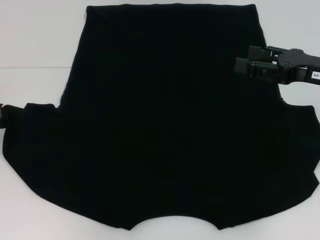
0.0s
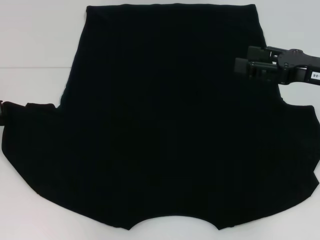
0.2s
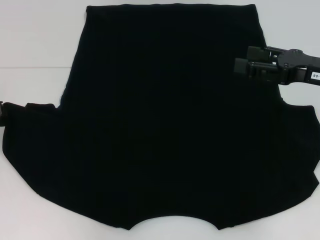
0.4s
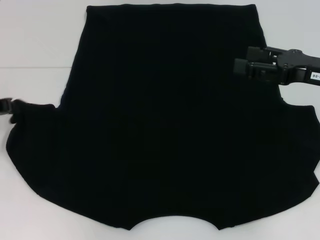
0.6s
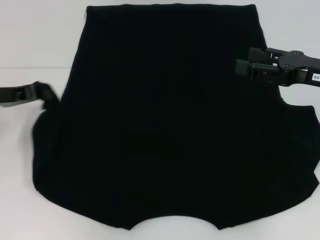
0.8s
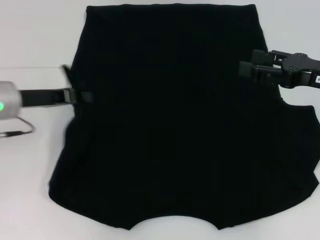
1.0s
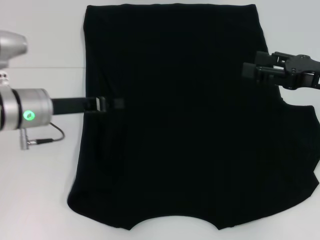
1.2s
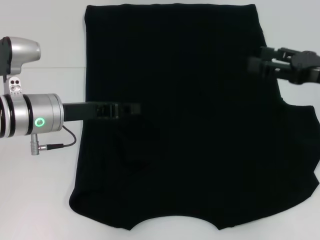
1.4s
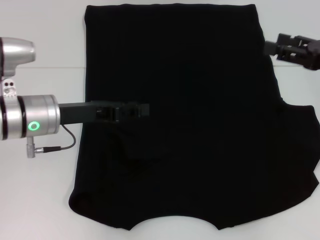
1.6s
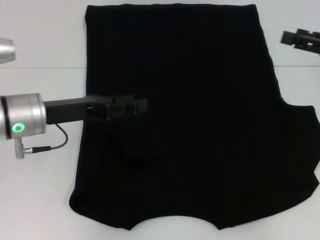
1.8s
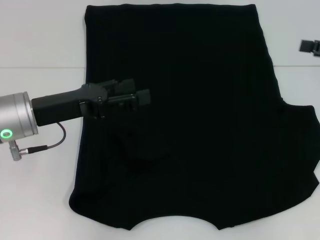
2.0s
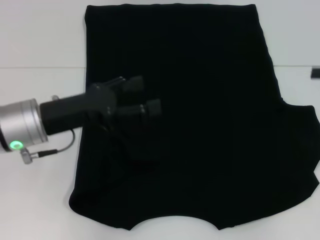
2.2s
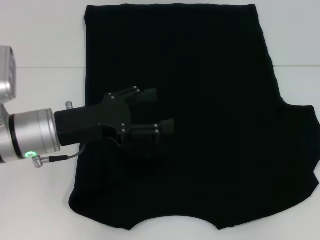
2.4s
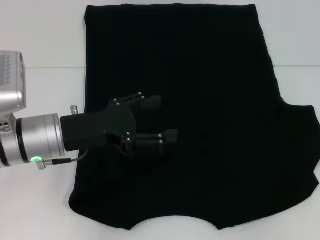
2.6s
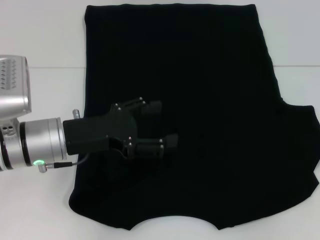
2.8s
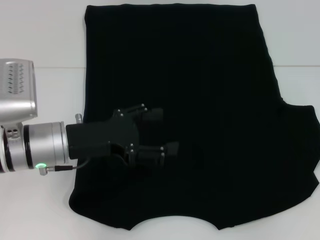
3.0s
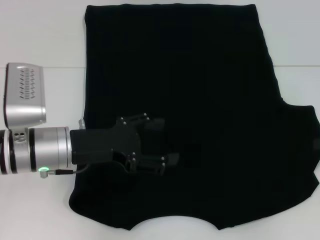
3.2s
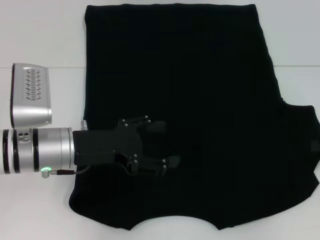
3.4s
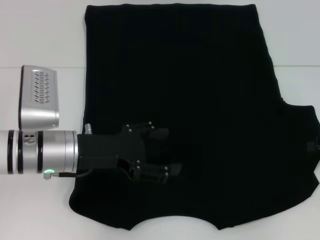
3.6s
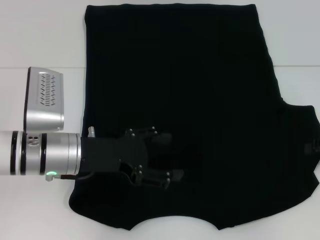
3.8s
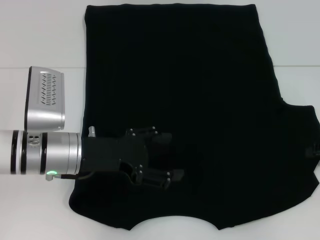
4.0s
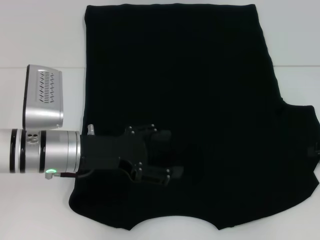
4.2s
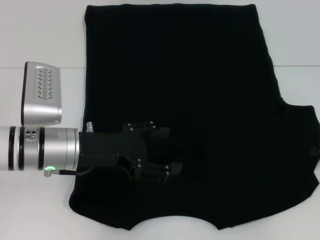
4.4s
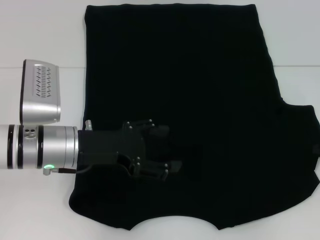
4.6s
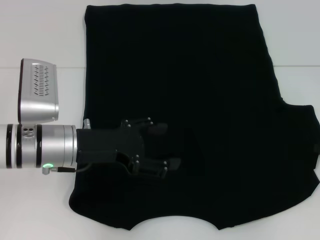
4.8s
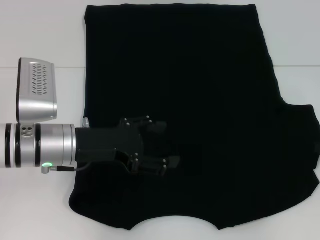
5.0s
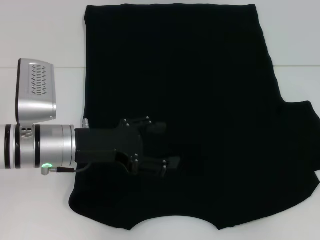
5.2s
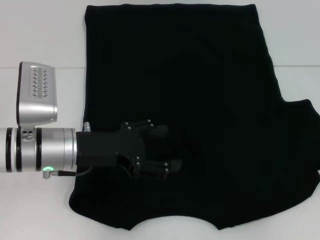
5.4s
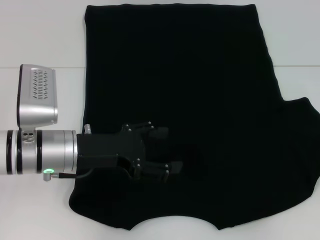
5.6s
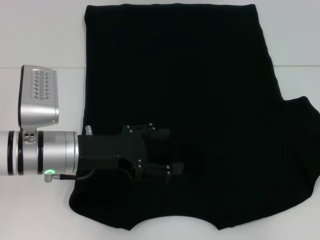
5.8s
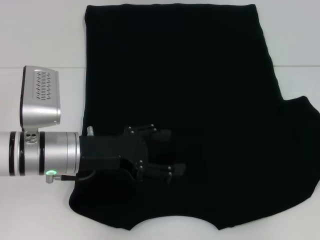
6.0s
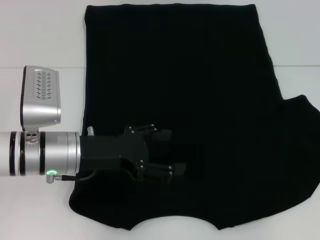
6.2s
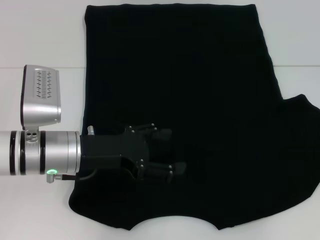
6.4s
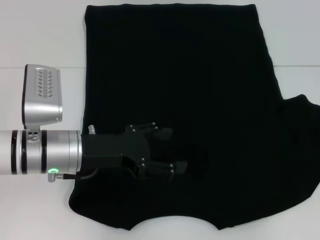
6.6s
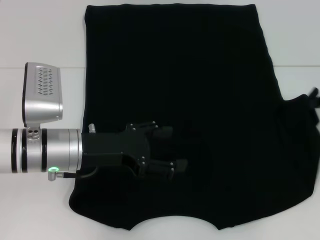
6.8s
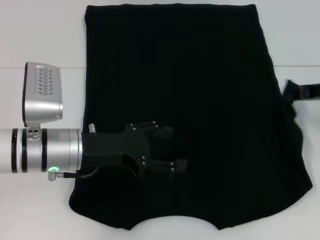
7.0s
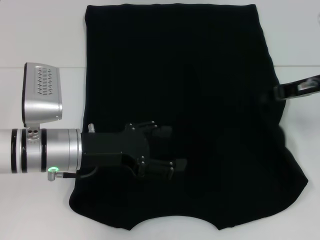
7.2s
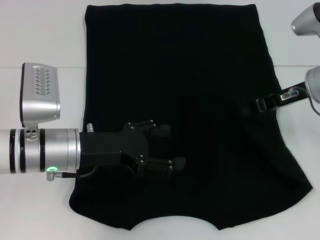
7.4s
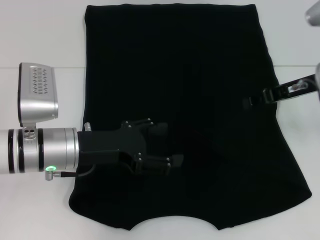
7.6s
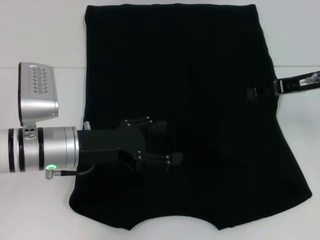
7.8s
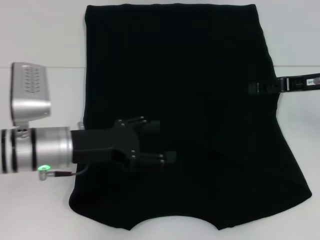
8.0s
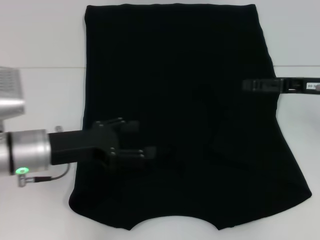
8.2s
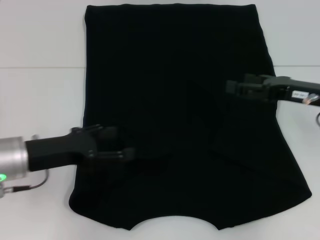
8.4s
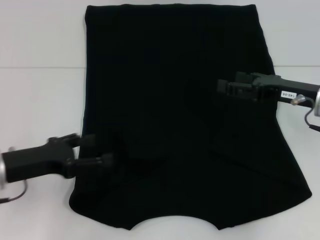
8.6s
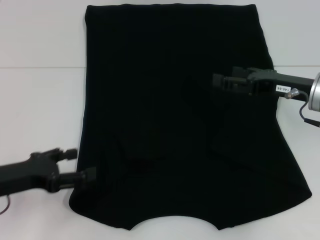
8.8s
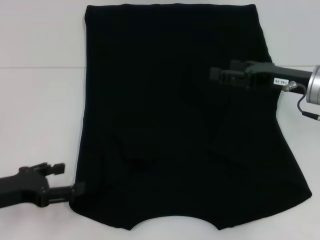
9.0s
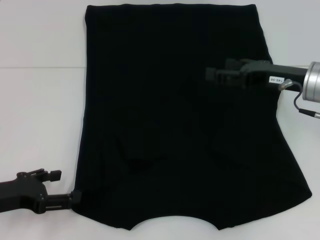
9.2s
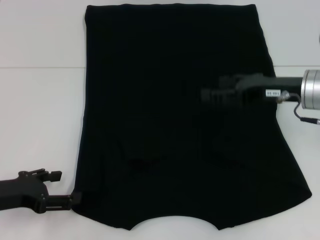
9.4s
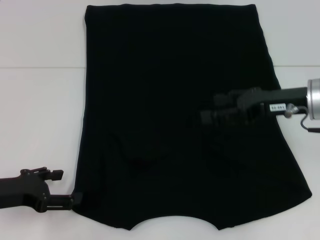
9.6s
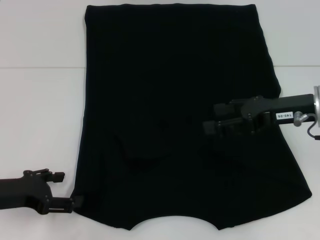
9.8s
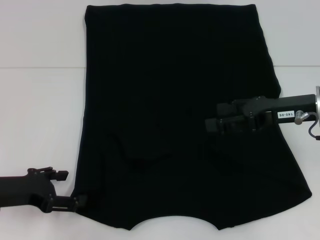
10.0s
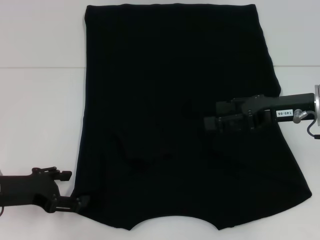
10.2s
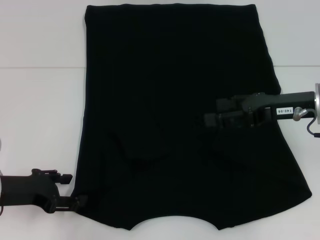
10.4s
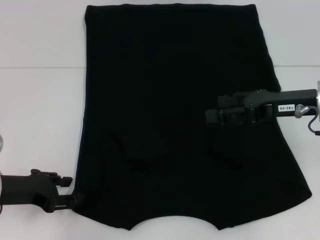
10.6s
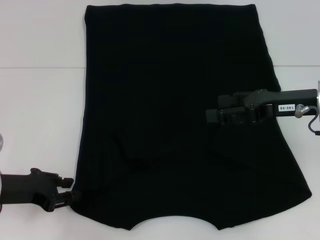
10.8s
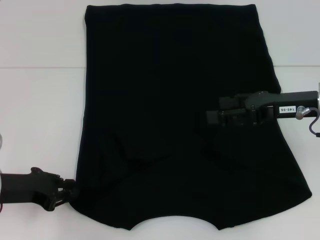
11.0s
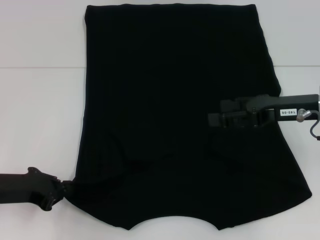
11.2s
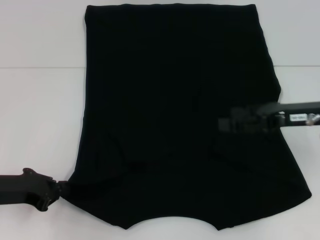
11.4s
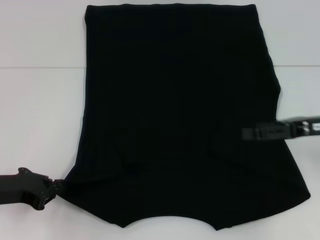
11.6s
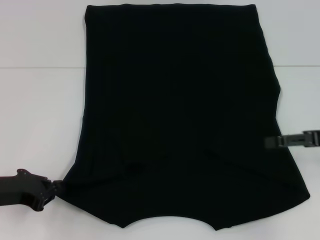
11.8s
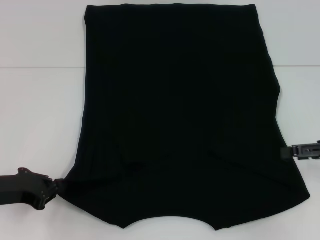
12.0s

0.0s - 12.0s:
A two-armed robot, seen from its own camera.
Step, 1.8s - 8.0s: Fold the bottom right sleeve with your right hand.
0.0s - 1.6s: The left gripper is displaced to the right by about 15 cm, and opens up.
1.6s - 3.0s: The right gripper moves to the right, some 10 cm. Meanwhile the left gripper opens up.
4.4s - 6.0s: The right gripper closes its fingers.
6.0s - 7.6s: The right gripper is displaced to the left and upward by approximately 15 cm.
7.6s - 9.0s: The left gripper moves to the left and backward, roughly 15 cm; the right gripper opens its fingers.
10.4s - 12.0s: The left gripper closes its fingers. Meanwhile the right gripper heads to the right, covering roughly 10 cm.

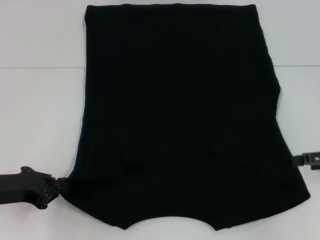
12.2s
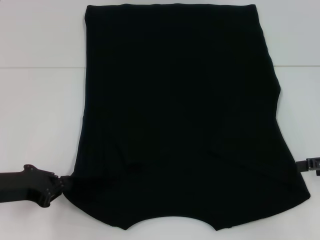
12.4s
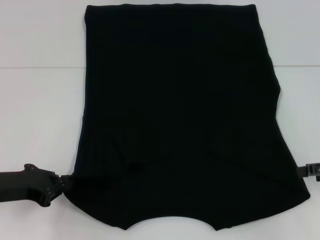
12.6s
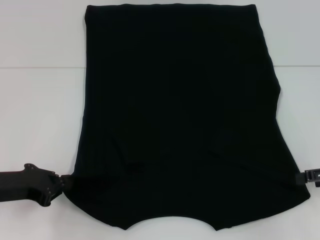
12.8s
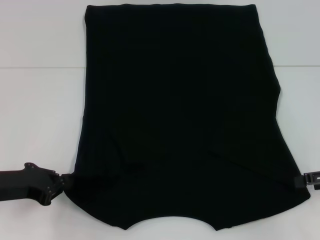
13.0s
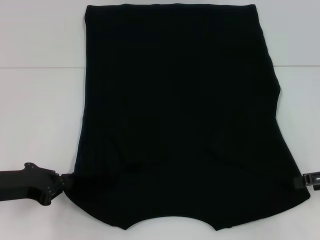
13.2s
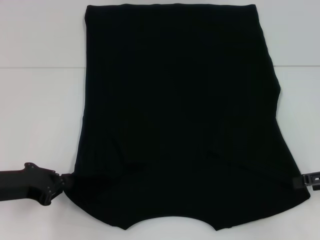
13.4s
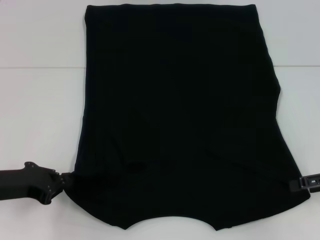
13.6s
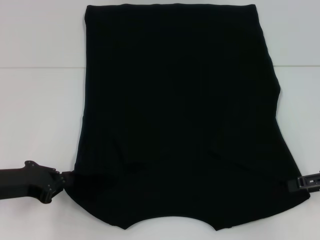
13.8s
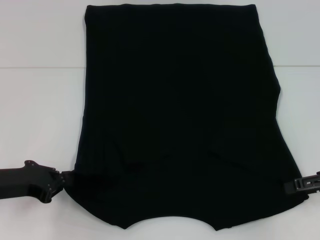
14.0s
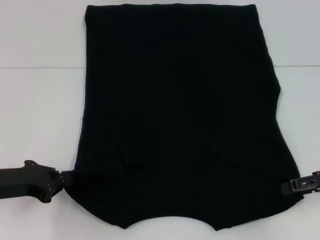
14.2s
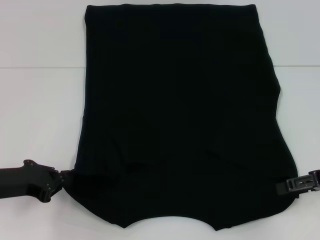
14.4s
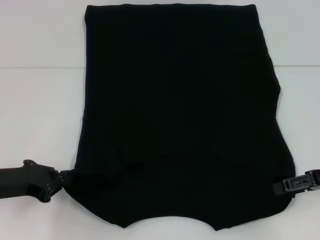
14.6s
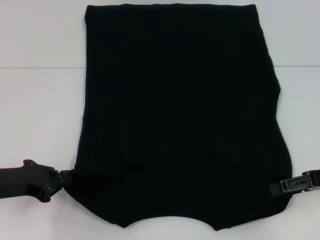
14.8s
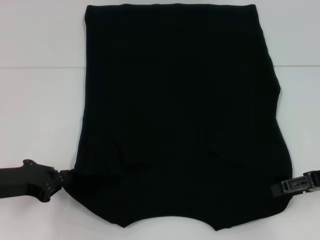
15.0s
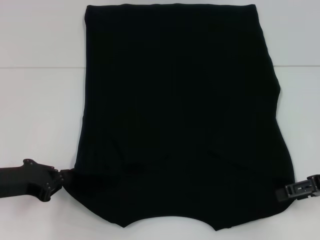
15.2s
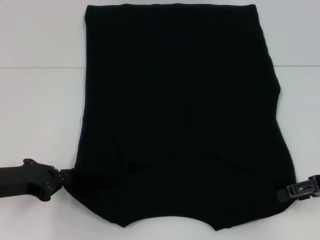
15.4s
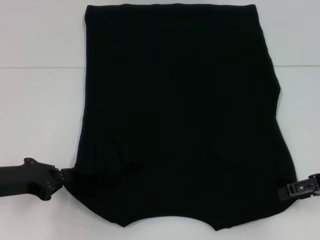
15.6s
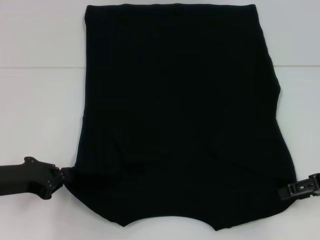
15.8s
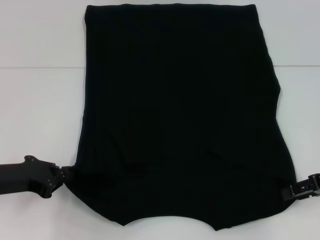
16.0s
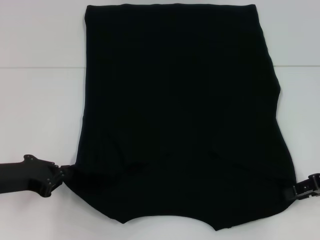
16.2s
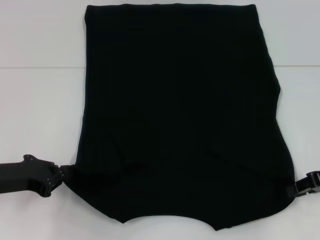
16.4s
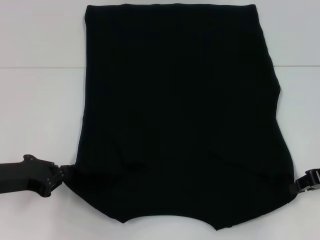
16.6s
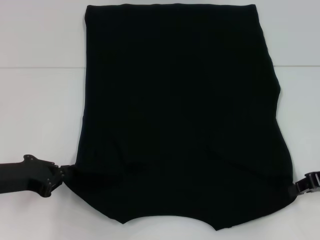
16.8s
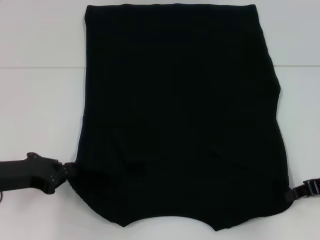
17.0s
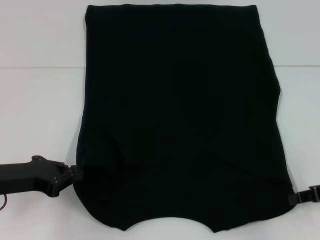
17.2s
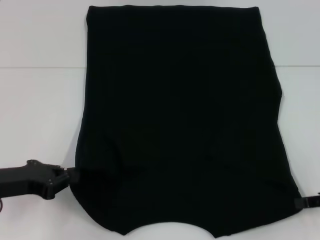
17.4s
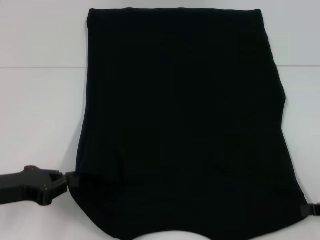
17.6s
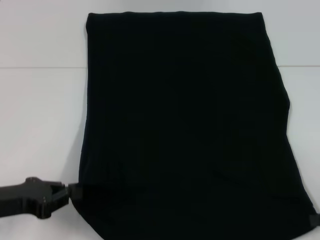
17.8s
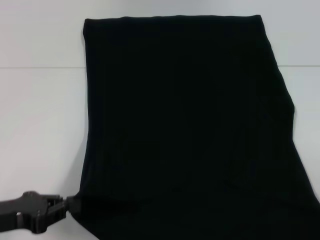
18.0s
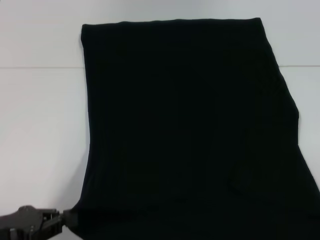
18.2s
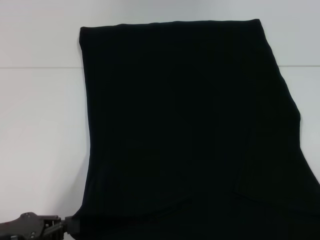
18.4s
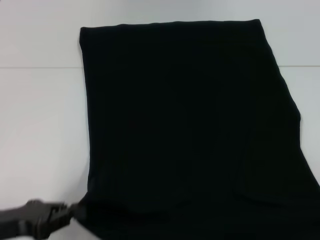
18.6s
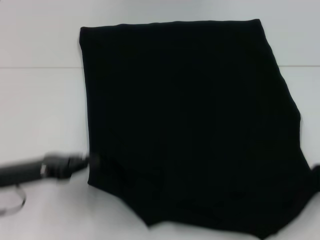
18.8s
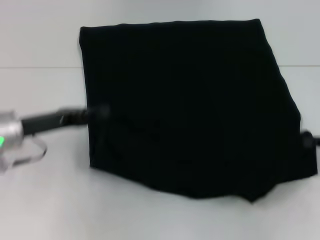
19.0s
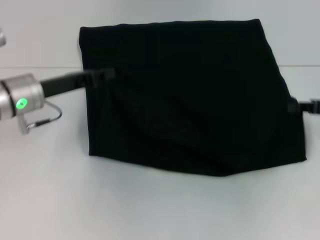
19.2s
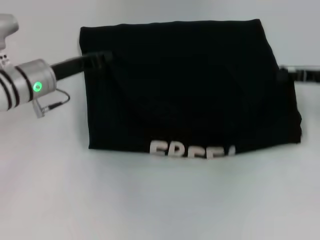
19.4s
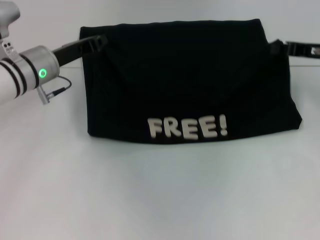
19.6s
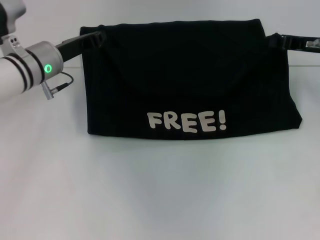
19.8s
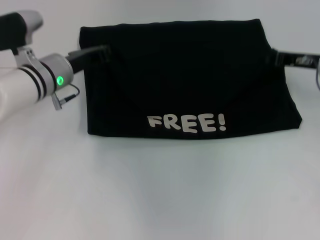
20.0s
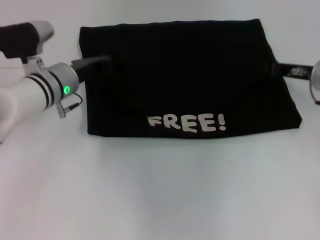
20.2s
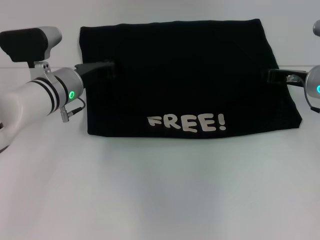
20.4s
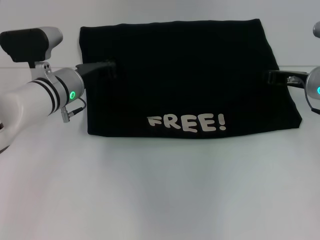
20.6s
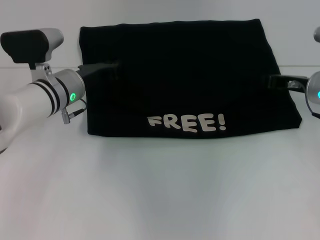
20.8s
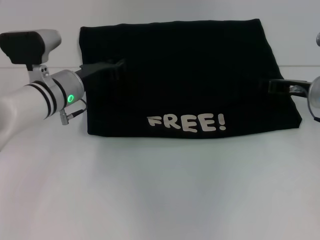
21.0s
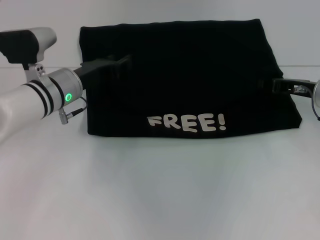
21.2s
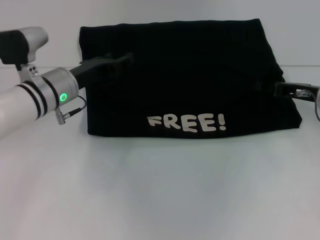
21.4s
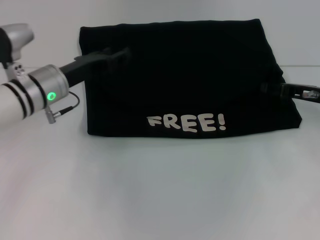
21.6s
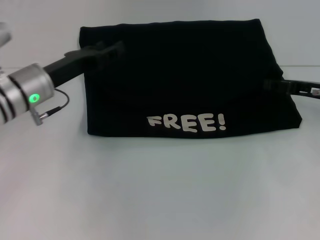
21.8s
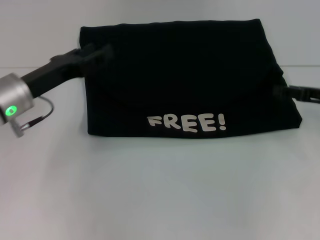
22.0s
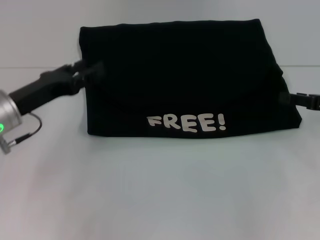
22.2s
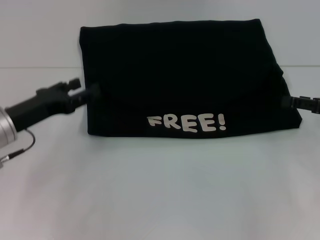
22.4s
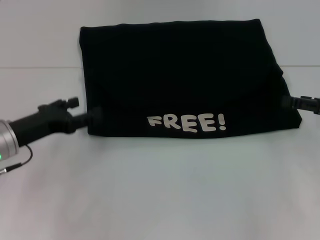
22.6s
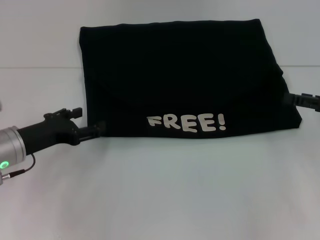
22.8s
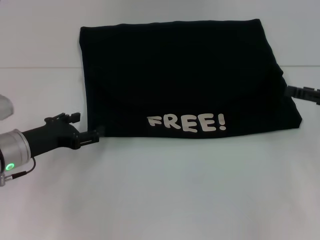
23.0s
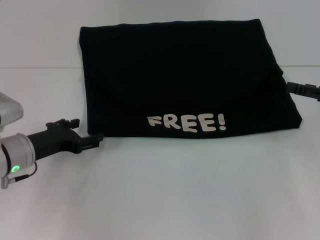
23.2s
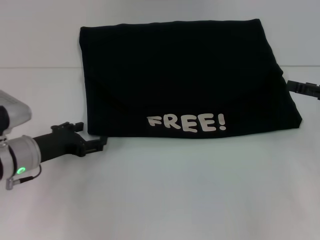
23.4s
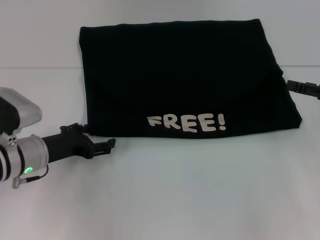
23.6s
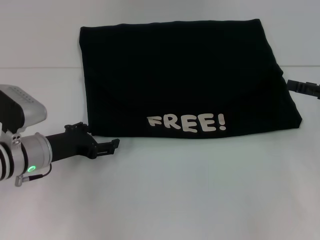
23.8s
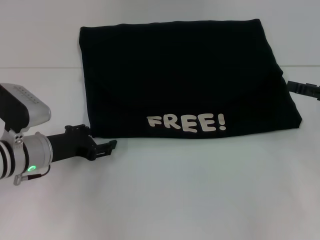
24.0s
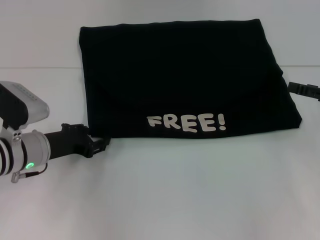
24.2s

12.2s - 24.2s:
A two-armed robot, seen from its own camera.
Step, 12.2s - 14.8s: Grab the bottom right corner with your right hand.
Step, 15.0s - 20.8s: Fold the clothes with your left hand.
Step, 15.0s - 20.8s: Fold the clothes with your right hand.
12.2s - 15.2s: The grippers stay close to where they were, moving slightly.
15.2s - 16.6s: The right gripper closes its fingers.
16.6s - 18.2s: The right gripper goes some 15 cm backward and to the right. The left gripper travels backward by about 10 cm.
18.2s - 19.8s: The left gripper goes some 25 cm forward, while the right gripper heads forward and to the left, covering roughly 30 cm.
19.8s - 21.2s: The right gripper is displaced downward by roughly 5 cm.
21.2s - 22.6s: The right gripper heads backward and to the right, covering about 10 cm, and opens up; the left gripper goes roughly 15 cm backward and to the left, and opens.
22.6s - 24.2s: The left gripper moves approximately 5 cm.
